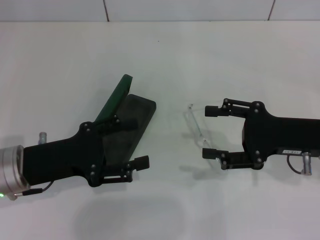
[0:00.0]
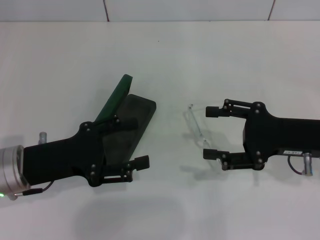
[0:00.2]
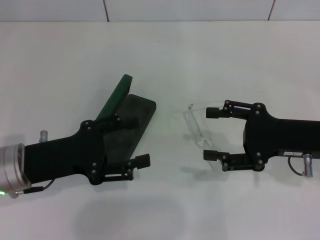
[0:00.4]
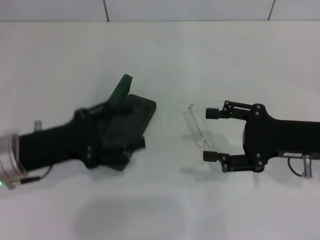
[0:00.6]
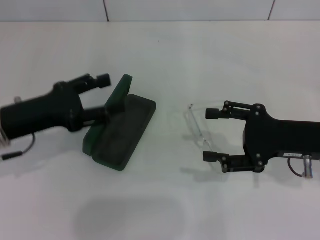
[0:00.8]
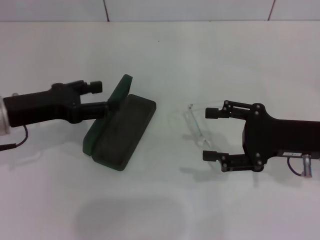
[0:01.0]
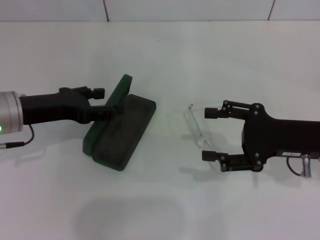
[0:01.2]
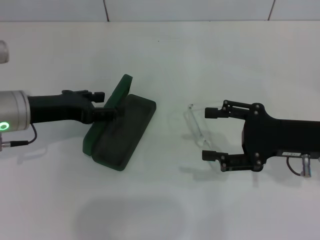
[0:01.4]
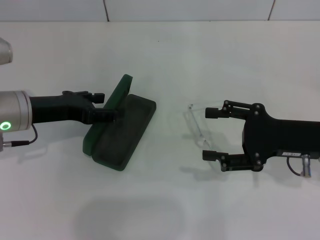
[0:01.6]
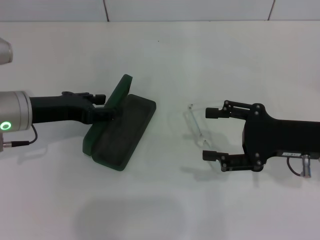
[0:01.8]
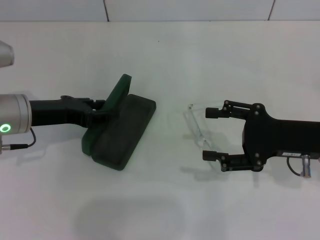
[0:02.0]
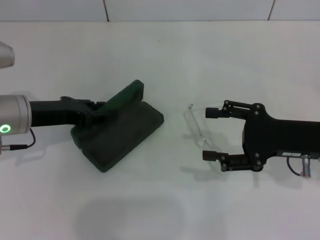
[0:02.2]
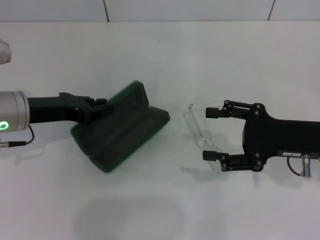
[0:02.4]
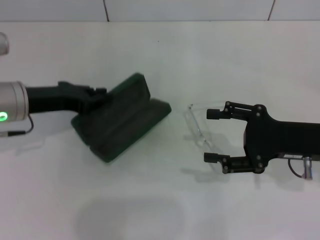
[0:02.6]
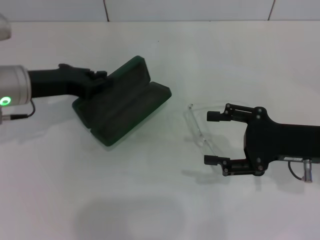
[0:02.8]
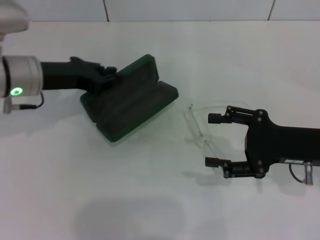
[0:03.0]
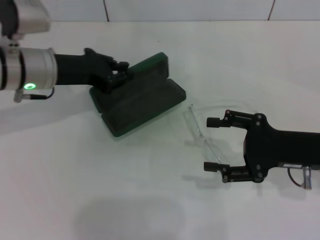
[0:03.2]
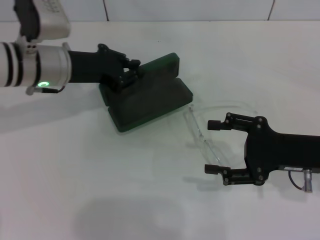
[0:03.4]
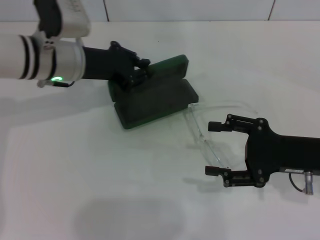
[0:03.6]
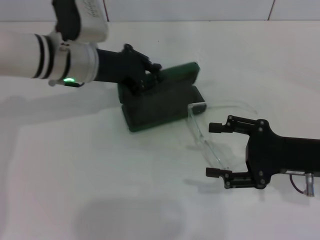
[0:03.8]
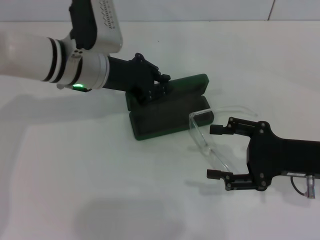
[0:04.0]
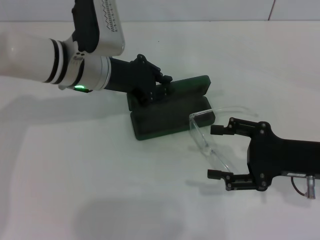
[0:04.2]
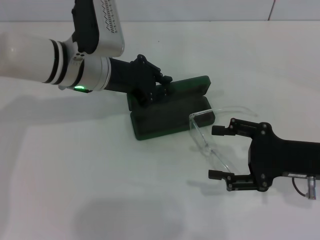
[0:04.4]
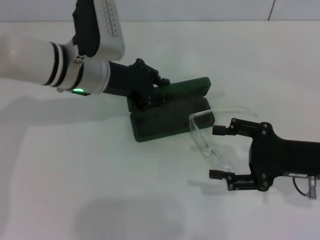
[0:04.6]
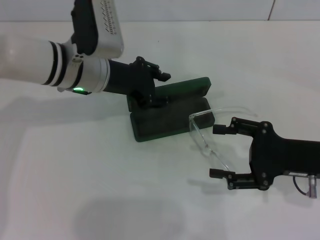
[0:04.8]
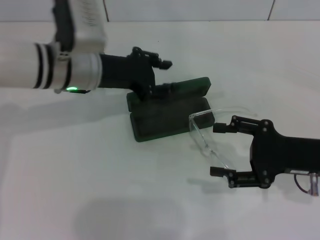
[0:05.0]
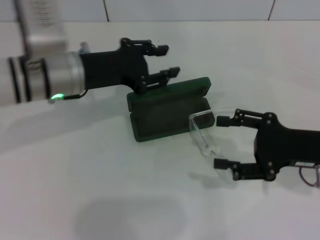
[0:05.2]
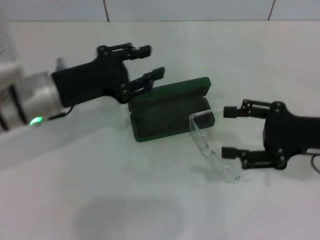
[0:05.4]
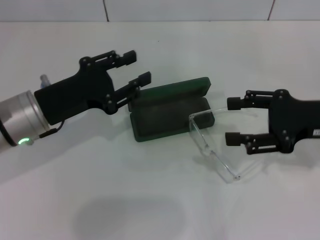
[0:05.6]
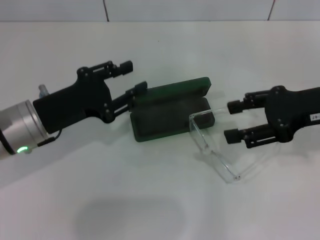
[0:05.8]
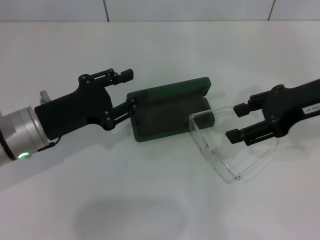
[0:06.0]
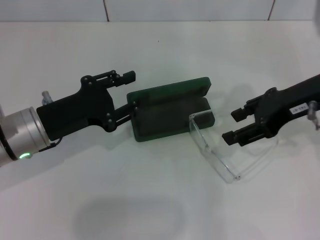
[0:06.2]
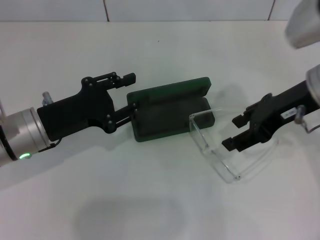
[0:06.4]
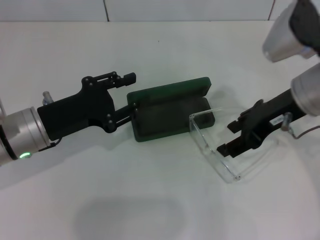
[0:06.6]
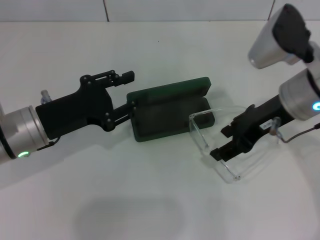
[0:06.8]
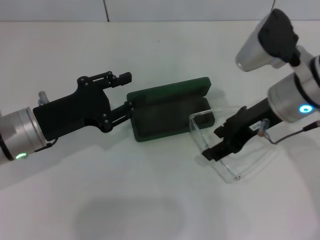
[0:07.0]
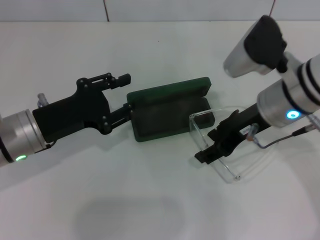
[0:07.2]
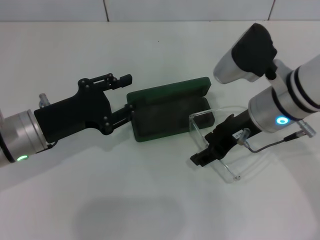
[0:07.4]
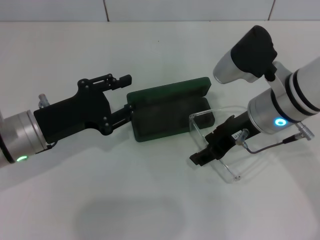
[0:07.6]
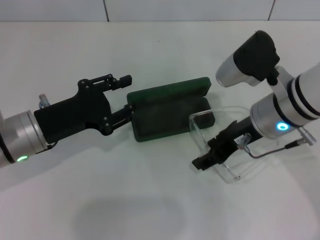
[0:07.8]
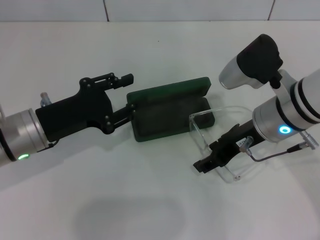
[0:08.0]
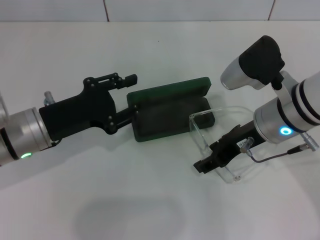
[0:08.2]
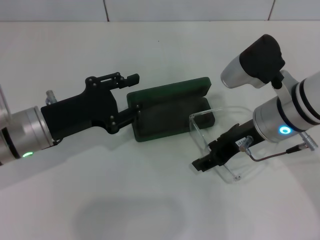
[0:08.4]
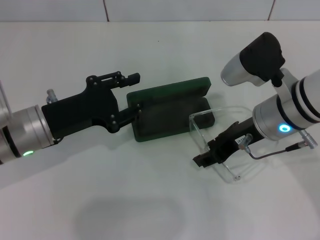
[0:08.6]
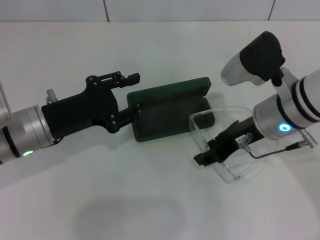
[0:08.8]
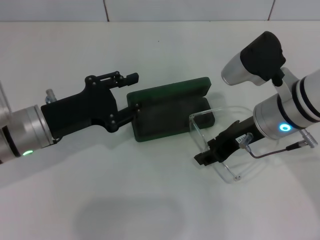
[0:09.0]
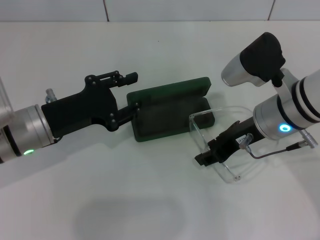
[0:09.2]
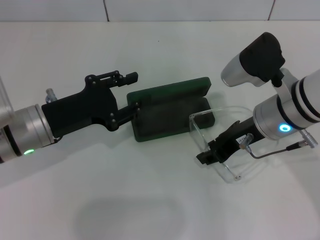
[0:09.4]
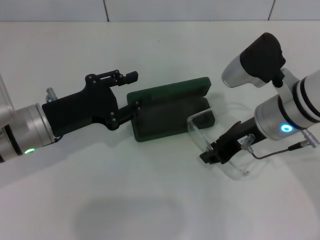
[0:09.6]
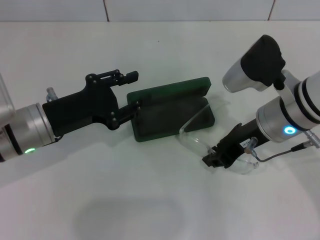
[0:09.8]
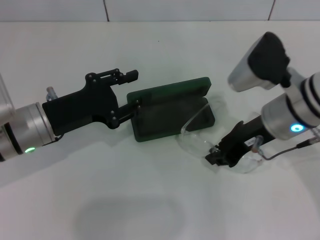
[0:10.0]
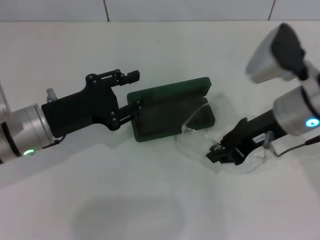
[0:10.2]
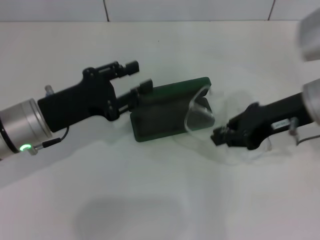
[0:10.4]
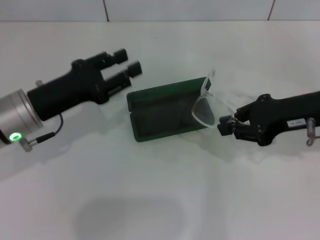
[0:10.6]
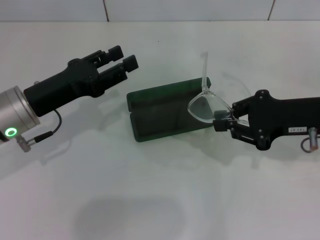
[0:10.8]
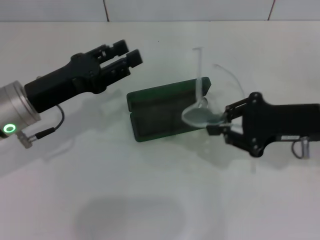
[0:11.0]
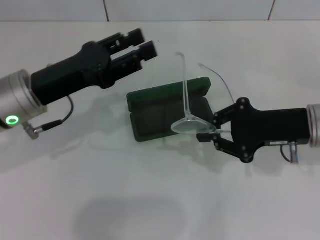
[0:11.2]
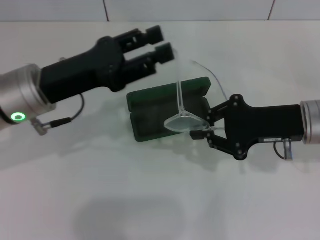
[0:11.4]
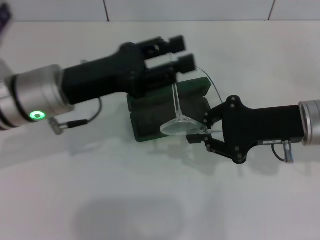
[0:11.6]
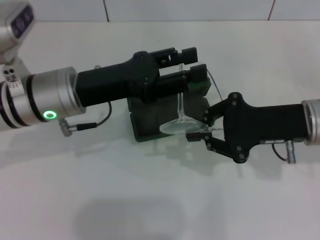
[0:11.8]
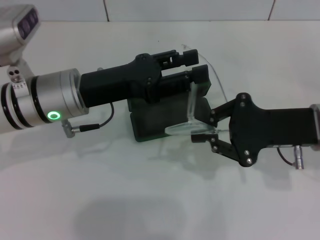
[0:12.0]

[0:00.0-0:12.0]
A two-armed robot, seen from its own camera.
Step, 0:00.0 to 0:02.2: Grab the glasses case with your left hand.
Step, 0:02.4 to 0:04.6: Place the glasses case in the center of the table with your left hand.
Step, 0:04.8 to 0:09.8: Grab the eyeglass frame with your right hand.
0:00.0 to 0:01.6: The left gripper shifts approximately 10 cm forward.
0:01.6 to 0:03.0: The left gripper changes place by some 5 cm, and closes up.
0:03.0 to 0:04.4: The left gripper is displaced to the right by roughly 10 cm.
0:04.4 to 0:06.0: The left gripper goes about 15 cm backward and to the left, and opens. The right gripper heads upward and forward, covering about 15 cm.
0:06.0 to 0:07.6: The right gripper moves to the left and downward, about 10 cm.
0:07.6 to 0:09.0: The grippers make only small movements.
0:09.0 to 0:10.4: The right gripper heads to the right, covering approximately 5 cm, and closes its fingers.
0:10.4 to 0:12.0: The right gripper ends up about 5 cm from where it was; the left gripper shifts approximately 5 cm to the right.

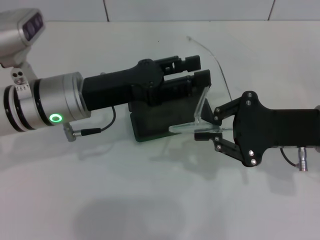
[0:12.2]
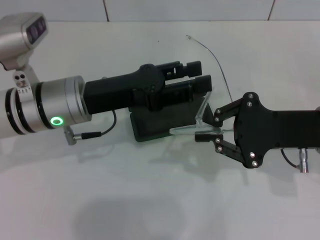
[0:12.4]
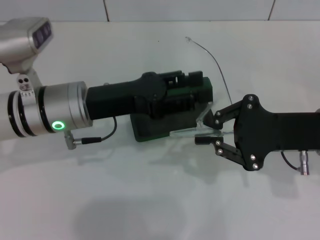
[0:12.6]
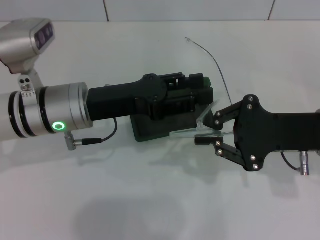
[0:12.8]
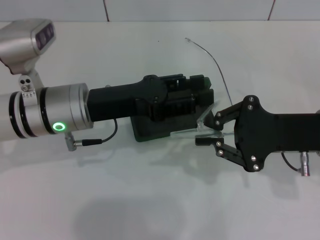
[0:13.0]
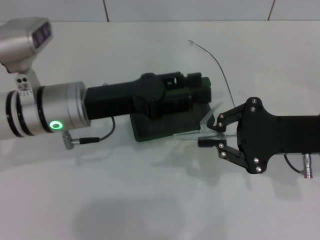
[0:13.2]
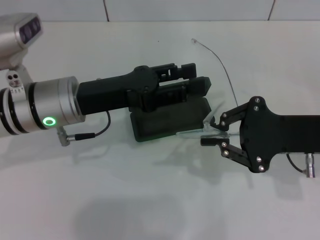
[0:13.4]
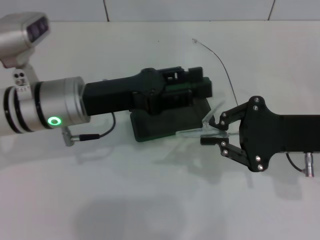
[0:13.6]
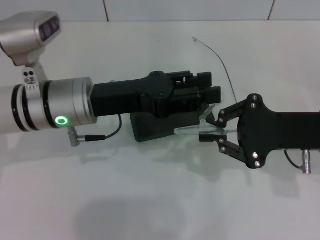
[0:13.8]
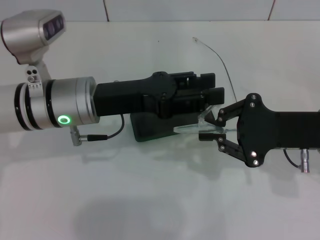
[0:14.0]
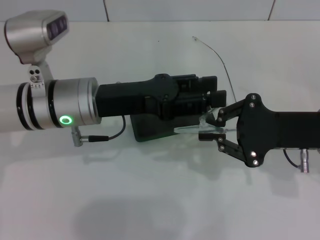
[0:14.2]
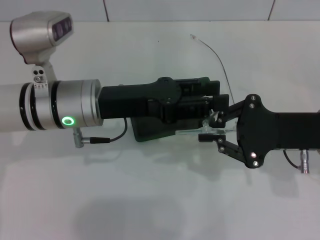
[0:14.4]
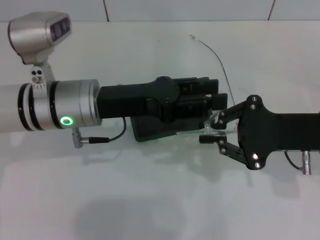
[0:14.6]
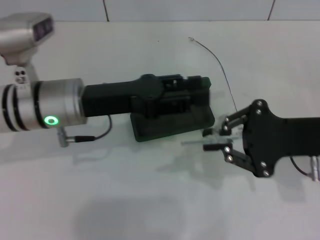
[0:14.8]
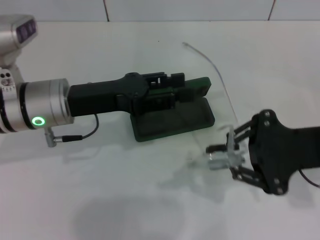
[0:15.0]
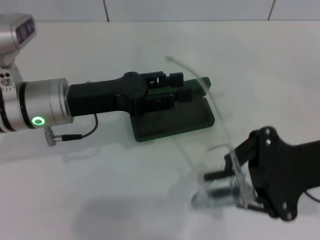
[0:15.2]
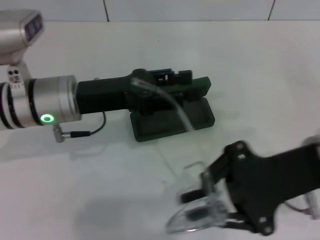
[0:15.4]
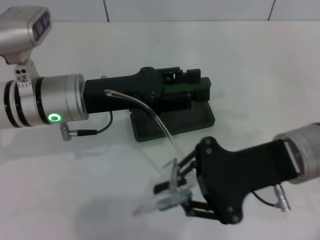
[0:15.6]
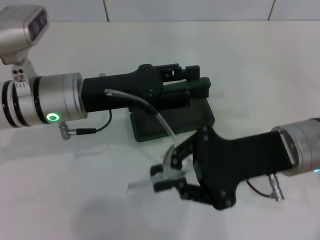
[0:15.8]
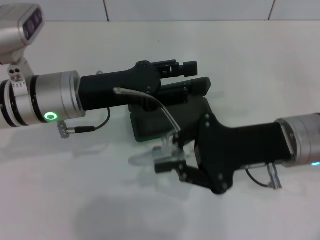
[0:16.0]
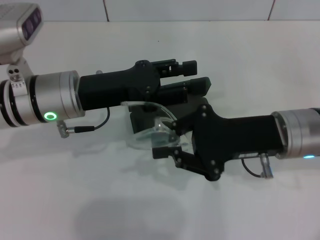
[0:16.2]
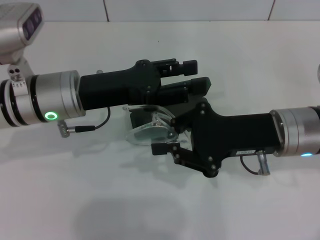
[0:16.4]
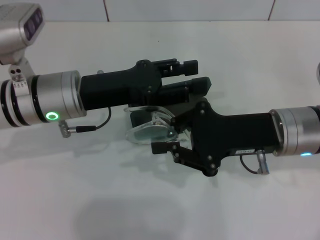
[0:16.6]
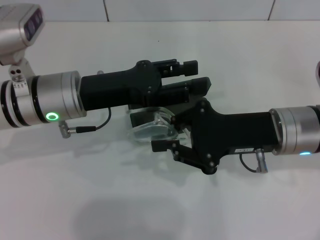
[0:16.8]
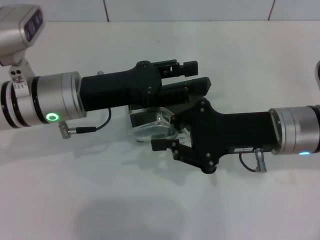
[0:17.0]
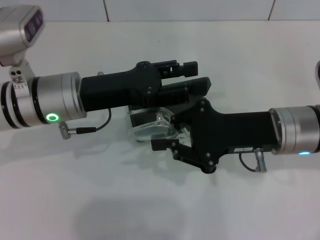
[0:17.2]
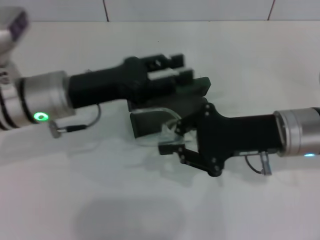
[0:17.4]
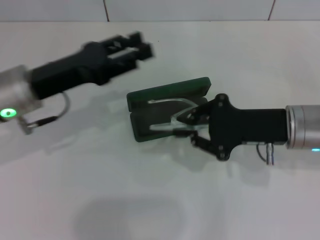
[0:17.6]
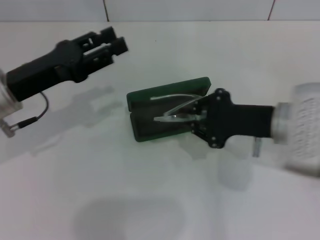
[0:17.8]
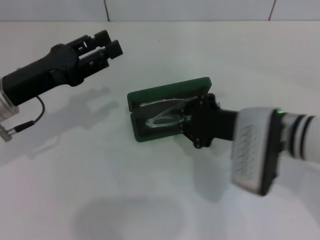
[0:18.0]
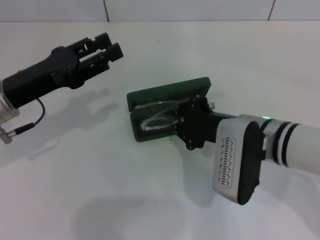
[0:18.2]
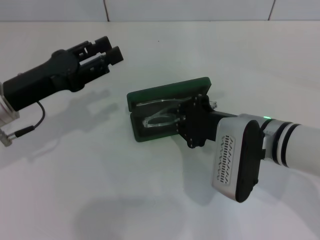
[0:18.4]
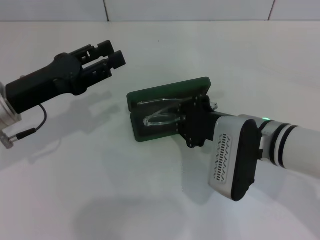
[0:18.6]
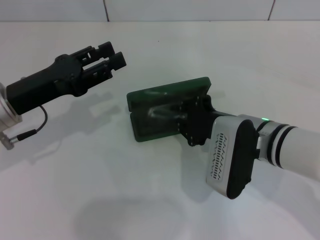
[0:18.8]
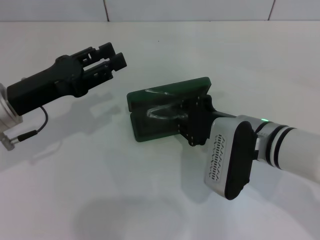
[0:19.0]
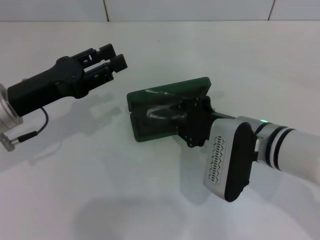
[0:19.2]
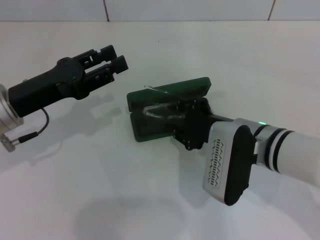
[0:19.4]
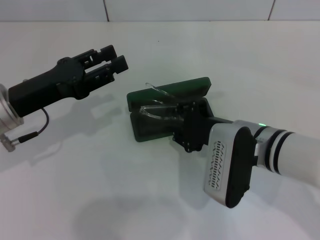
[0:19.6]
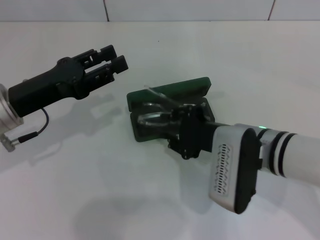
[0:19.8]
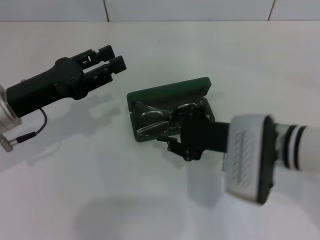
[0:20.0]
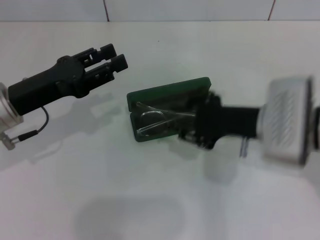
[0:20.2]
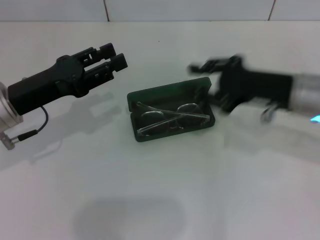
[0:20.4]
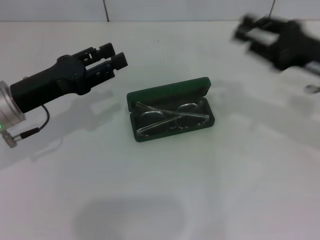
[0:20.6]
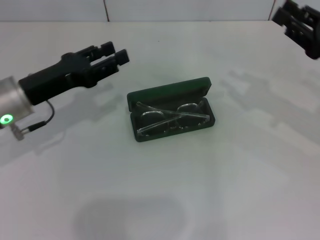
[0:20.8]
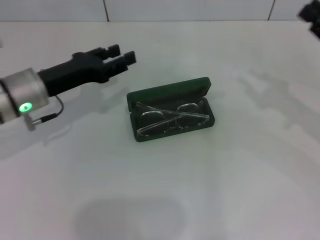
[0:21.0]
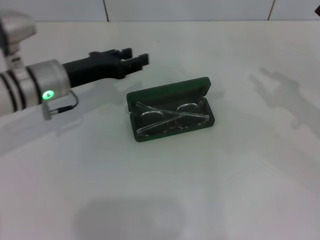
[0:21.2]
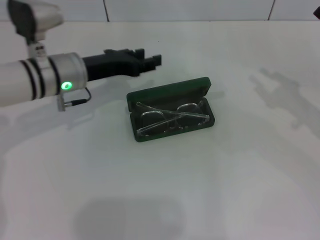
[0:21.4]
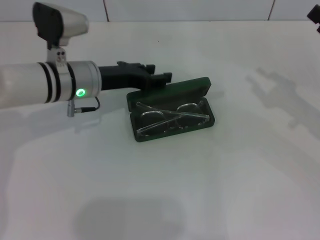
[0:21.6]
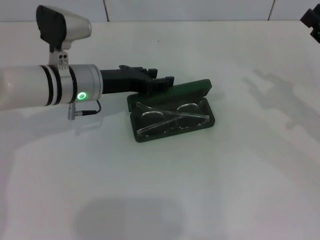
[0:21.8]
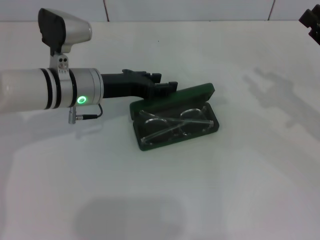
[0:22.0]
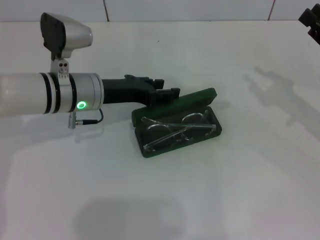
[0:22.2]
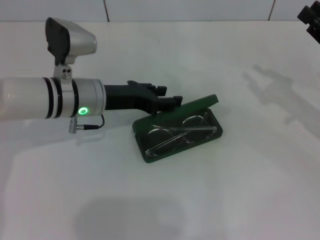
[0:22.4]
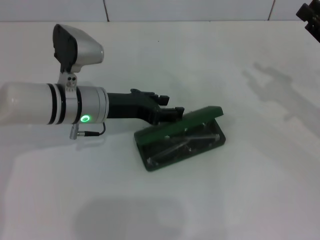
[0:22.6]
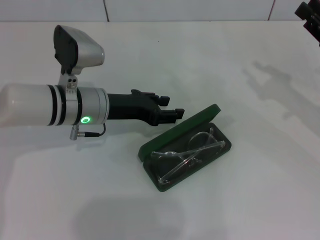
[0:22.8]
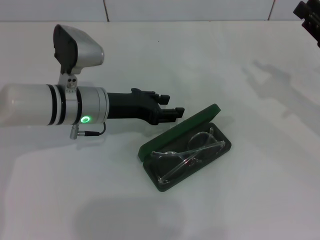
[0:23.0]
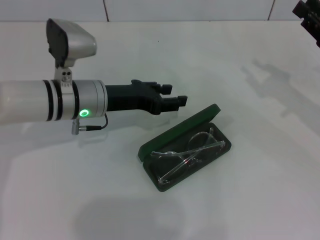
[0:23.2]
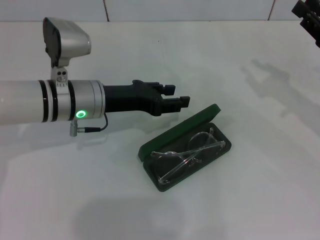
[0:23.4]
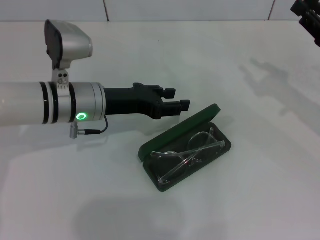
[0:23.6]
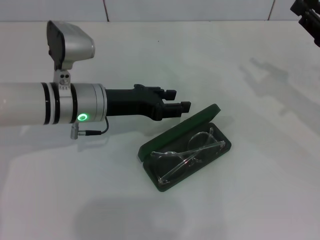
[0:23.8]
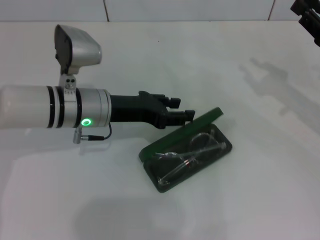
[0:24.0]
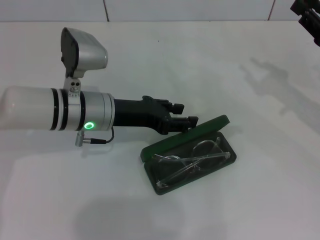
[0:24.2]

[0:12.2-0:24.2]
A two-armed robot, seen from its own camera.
Step, 0:12.2 to 0:17.0: Fold the frame with your left hand.
Step, 0:17.2 to 0:20.0: Put the glasses into the case with your right hand.
0:12.2 to 0:13.8: There are only small adjustments of the grippers.
0:15.2 to 0:16.6: The right gripper is displaced to the left by some 5 cm.
0:16.6 to 0:18.2: The right gripper shifts by roughly 5 cm, while the left gripper goes roughly 10 cm to the left.
0:18.2 to 0:19.8: The grippers move only a little.
0:19.8 to 0:21.2: The left gripper travels forward by approximately 5 cm. Meanwhile the right gripper is displaced to the right by approximately 20 cm.
0:21.2 to 0:22.6: The left gripper travels to the right by roughly 5 cm.
0:22.6 to 0:24.2: The grippers move only a little.
